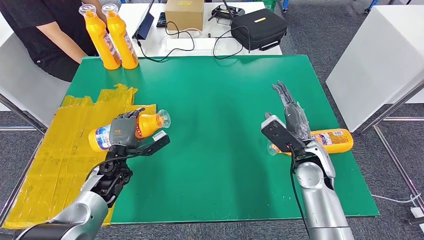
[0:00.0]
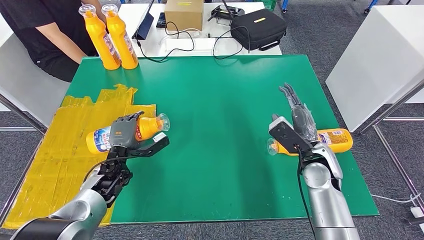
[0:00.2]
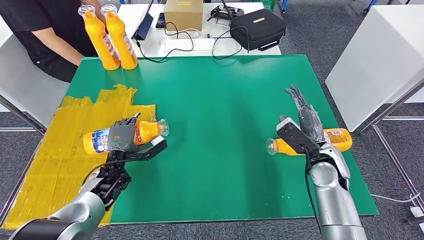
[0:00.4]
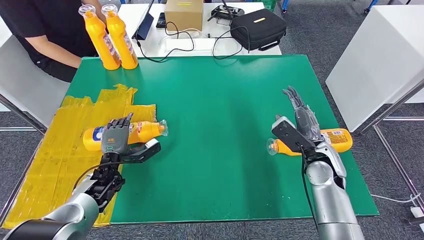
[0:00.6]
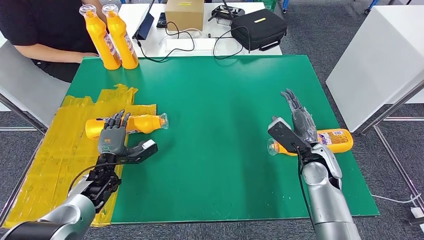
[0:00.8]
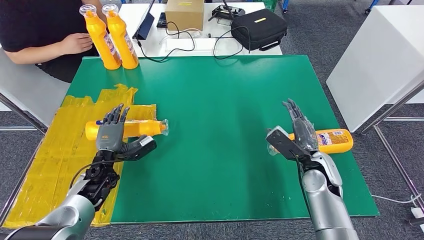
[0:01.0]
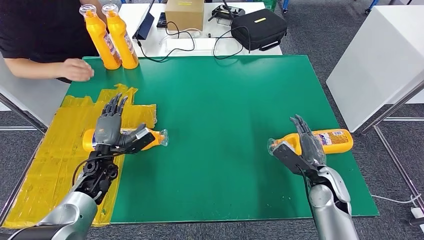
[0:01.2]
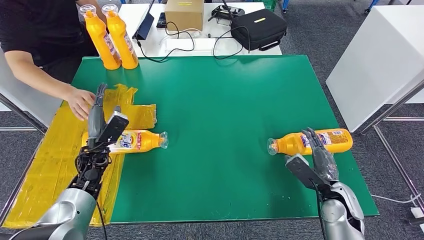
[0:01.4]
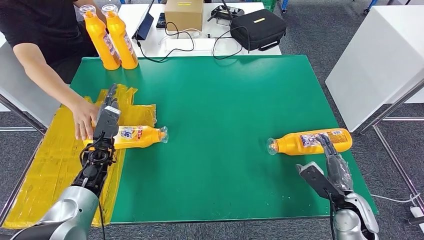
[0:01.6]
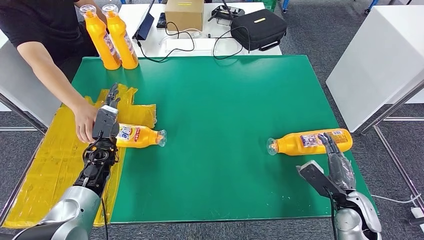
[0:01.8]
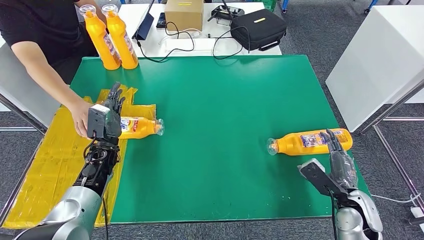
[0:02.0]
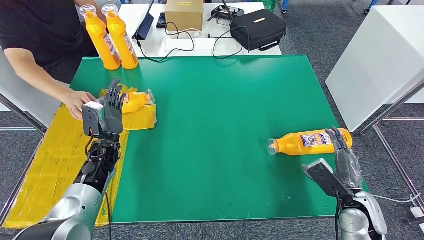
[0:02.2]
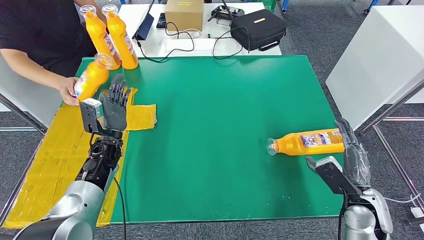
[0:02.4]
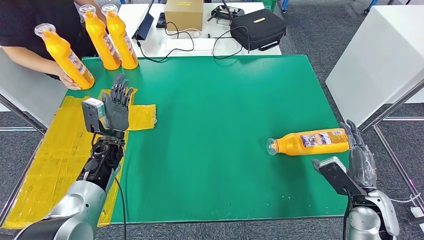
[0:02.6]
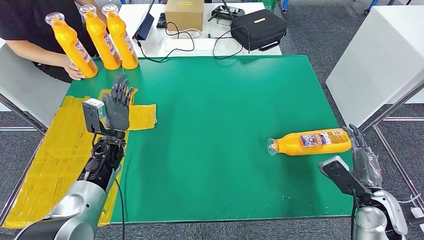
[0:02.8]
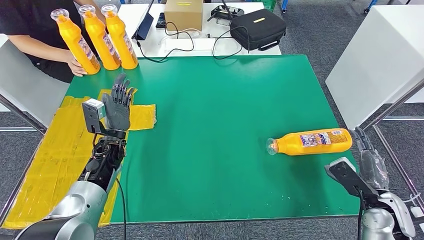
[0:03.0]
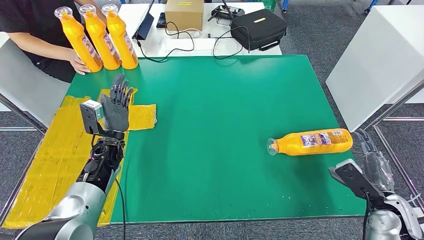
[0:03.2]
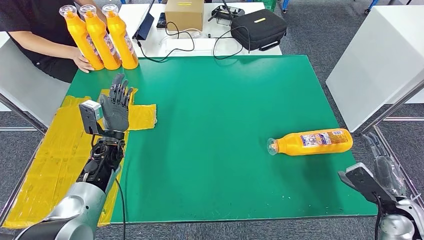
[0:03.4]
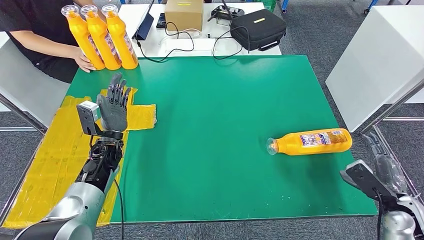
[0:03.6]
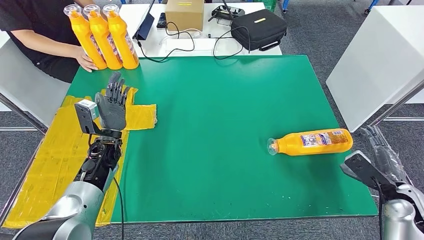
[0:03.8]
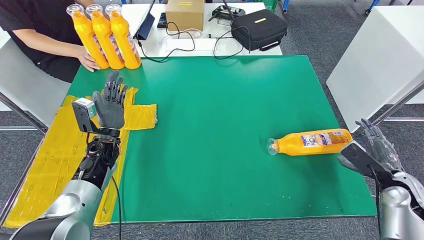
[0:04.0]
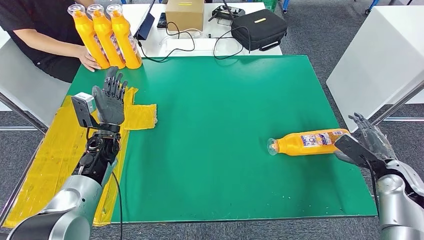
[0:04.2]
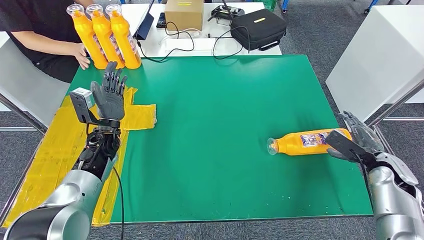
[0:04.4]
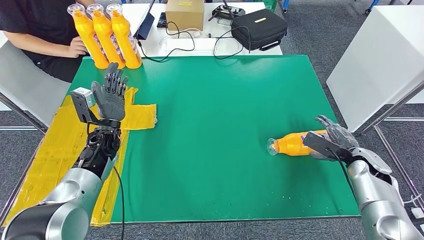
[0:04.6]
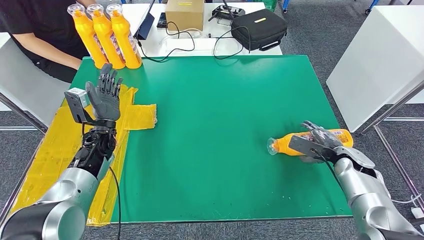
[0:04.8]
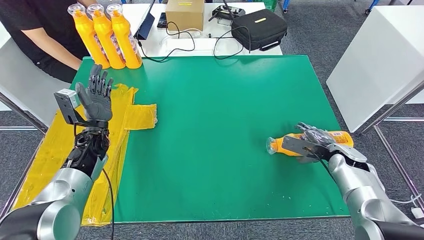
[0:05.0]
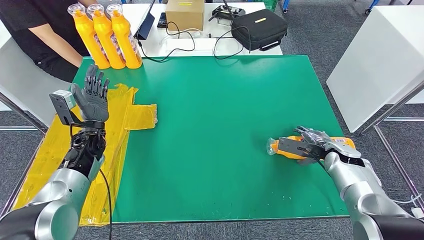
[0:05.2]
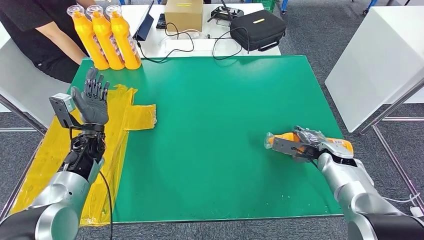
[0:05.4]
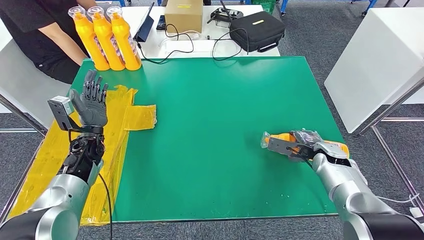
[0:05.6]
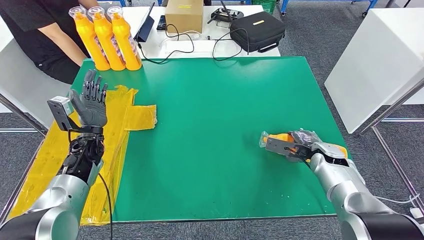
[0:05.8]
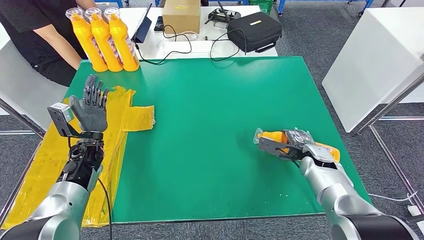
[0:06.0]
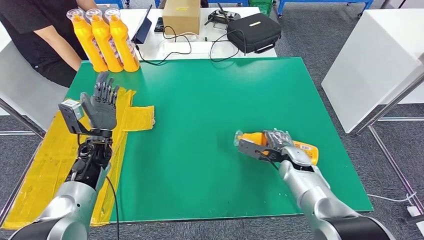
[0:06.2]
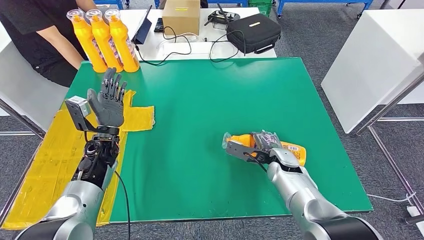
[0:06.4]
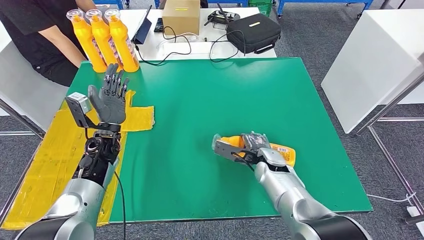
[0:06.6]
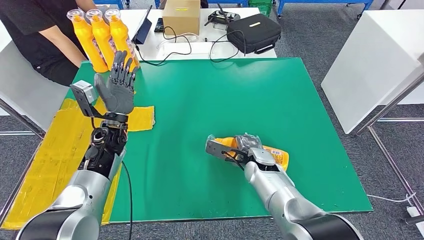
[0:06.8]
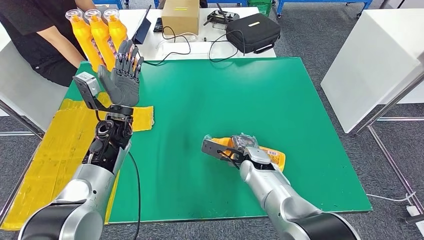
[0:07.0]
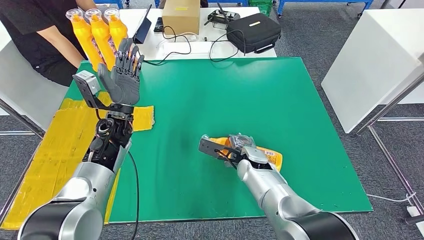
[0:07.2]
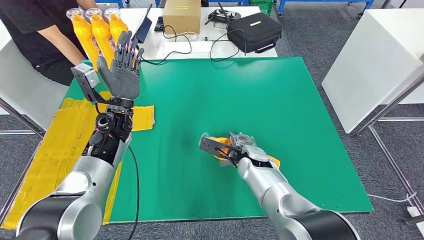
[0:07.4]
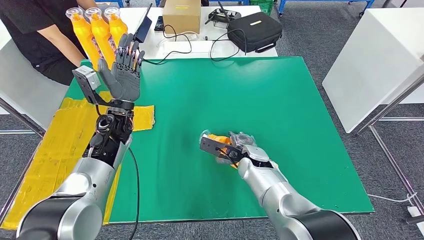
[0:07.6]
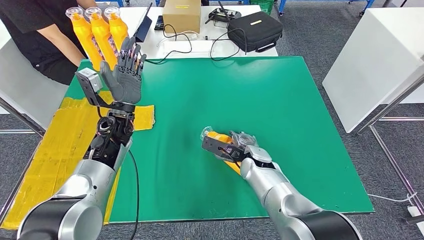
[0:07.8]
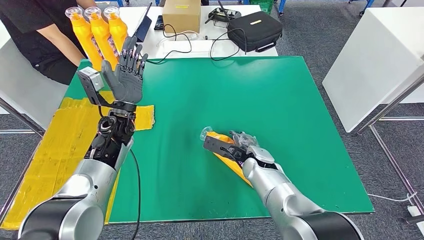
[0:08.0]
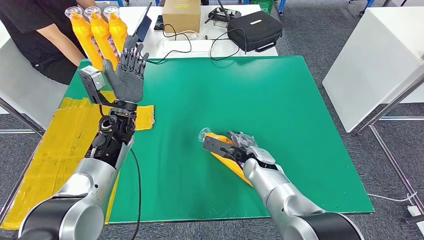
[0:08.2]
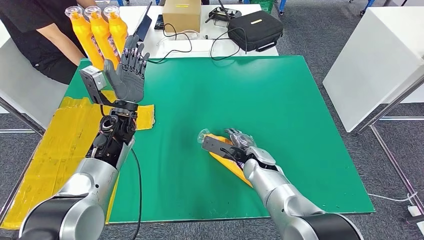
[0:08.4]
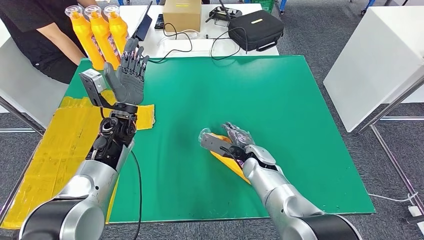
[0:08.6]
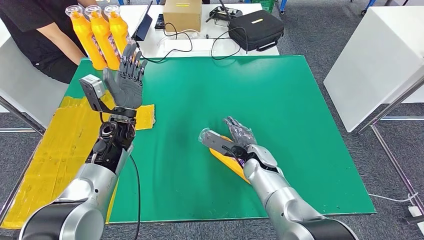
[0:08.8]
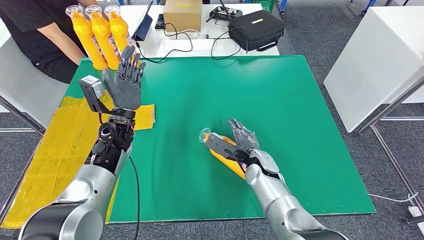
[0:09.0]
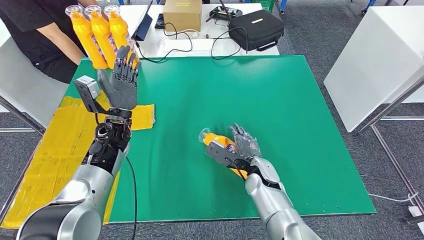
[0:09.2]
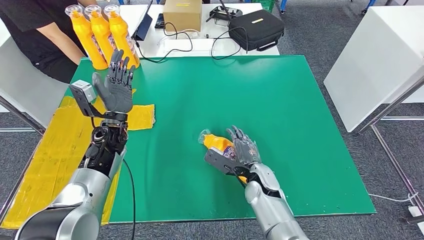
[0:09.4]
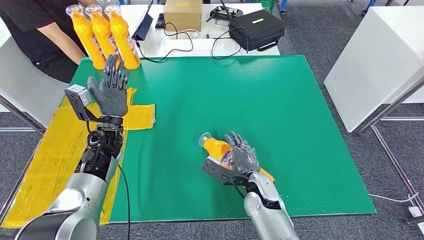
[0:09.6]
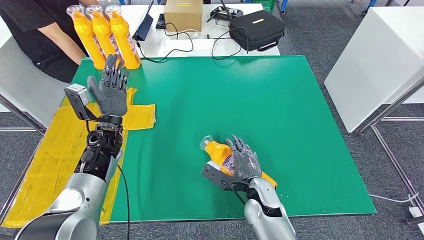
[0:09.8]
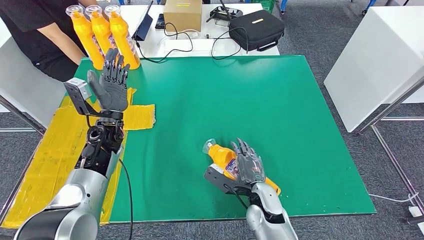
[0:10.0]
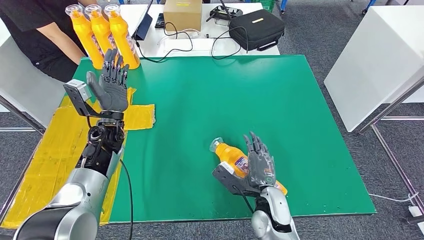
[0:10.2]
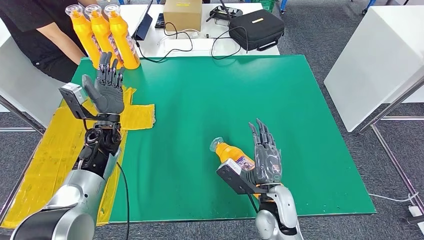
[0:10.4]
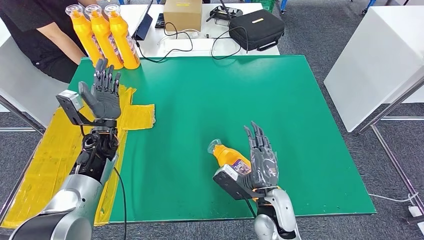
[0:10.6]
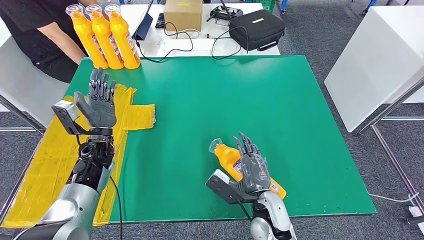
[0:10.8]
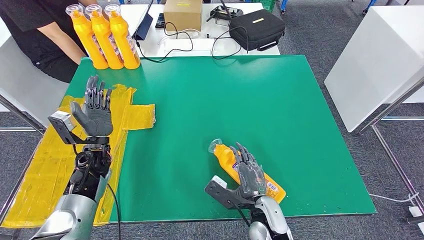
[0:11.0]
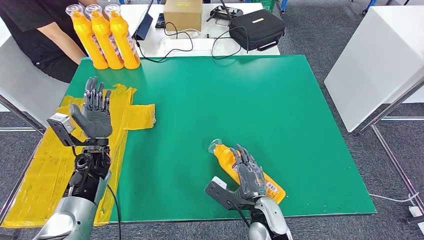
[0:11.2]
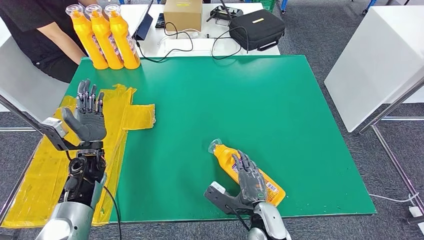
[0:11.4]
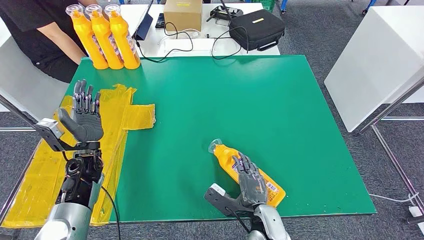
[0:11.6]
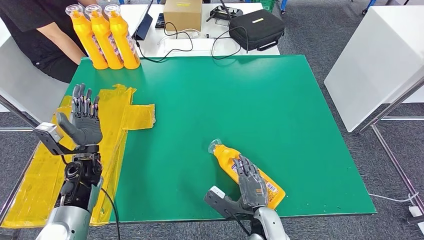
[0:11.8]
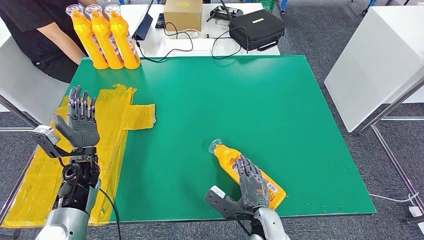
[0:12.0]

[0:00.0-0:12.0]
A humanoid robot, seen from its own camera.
0:03.0 to 0:04.4: The right hand shifts about 10 cm forward.
0:09.0 to 0:10.4: The right hand goes some 10 cm backward.
0:10.4 to 0:12.0: The left hand is displaced backward, to the left and downward by roughly 10 cm. The right hand heads downward, covering approximately 5 cm.

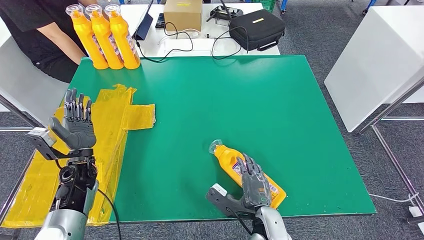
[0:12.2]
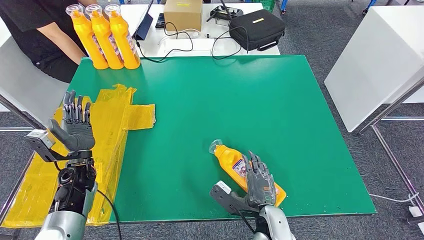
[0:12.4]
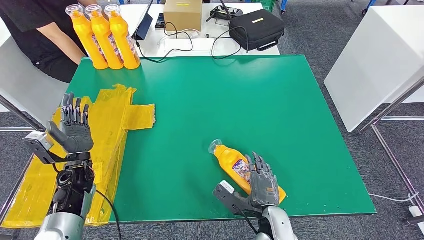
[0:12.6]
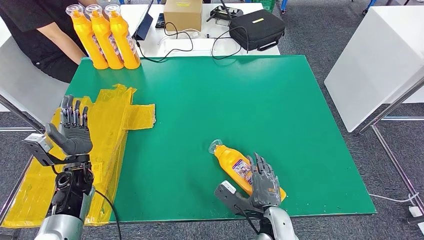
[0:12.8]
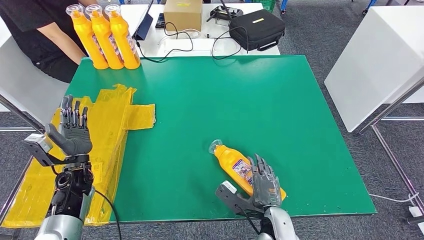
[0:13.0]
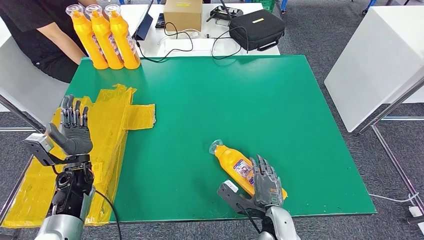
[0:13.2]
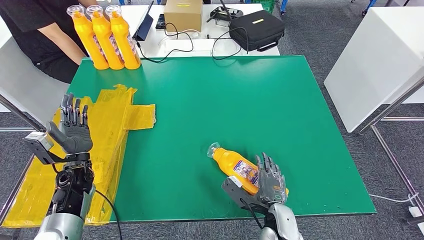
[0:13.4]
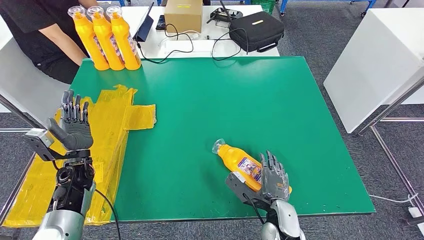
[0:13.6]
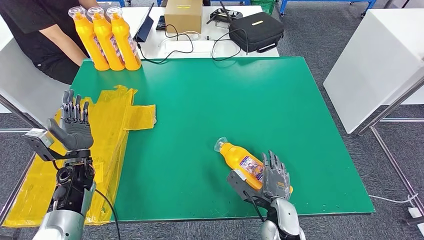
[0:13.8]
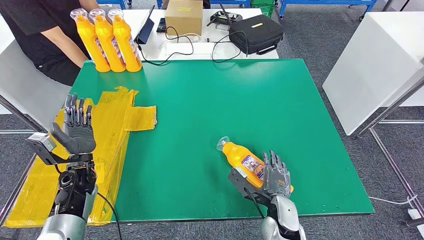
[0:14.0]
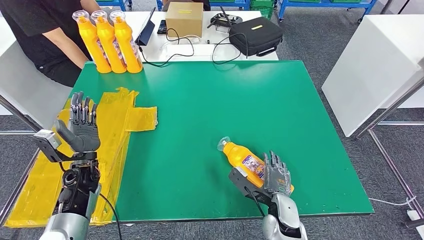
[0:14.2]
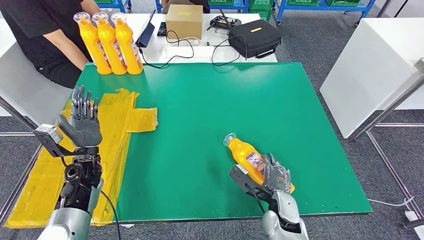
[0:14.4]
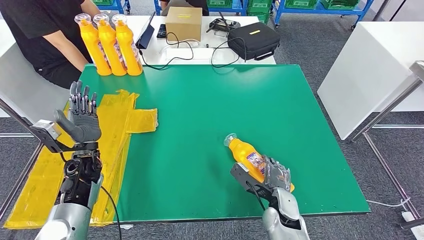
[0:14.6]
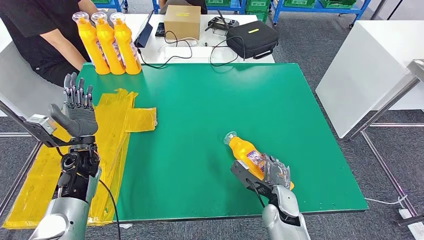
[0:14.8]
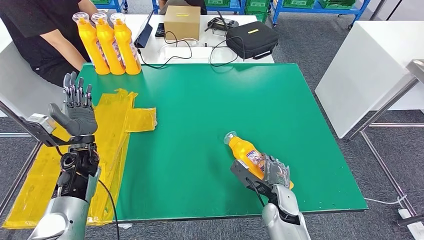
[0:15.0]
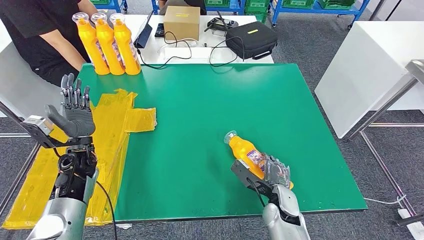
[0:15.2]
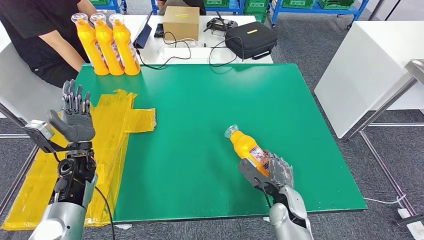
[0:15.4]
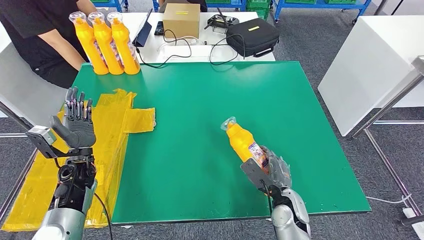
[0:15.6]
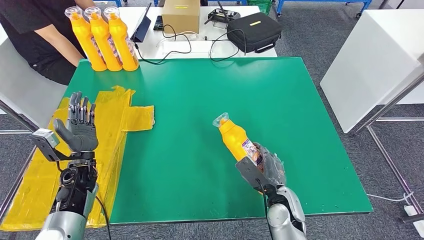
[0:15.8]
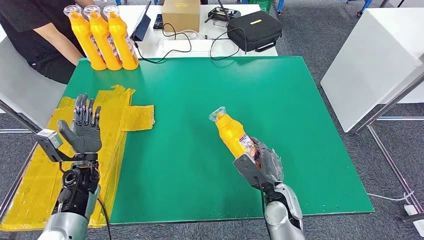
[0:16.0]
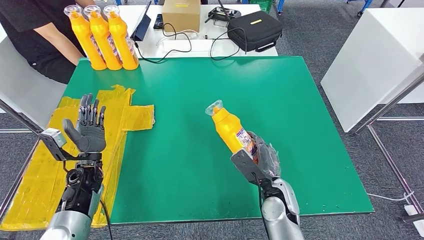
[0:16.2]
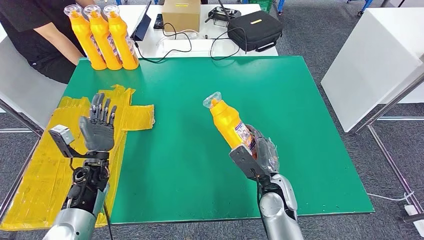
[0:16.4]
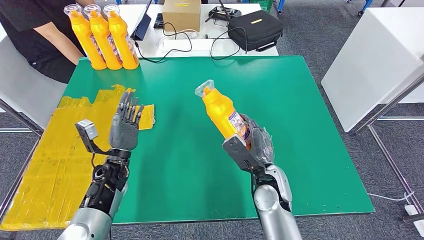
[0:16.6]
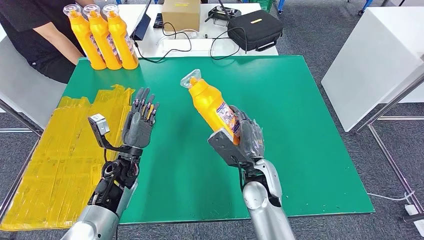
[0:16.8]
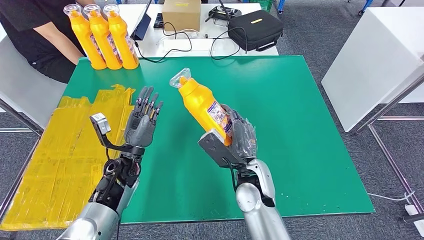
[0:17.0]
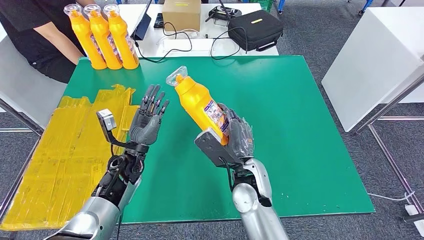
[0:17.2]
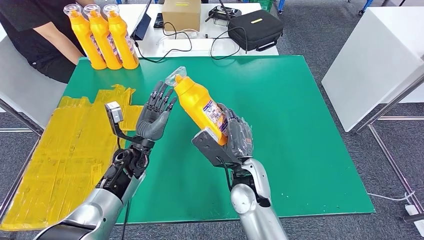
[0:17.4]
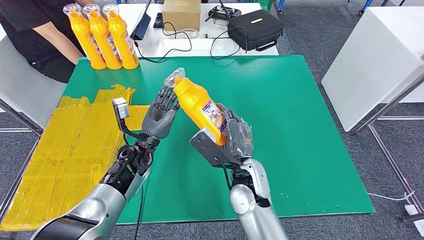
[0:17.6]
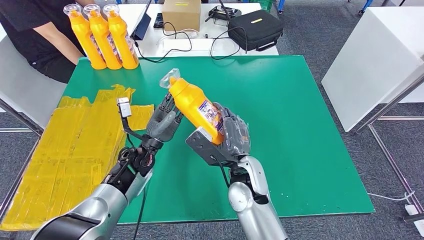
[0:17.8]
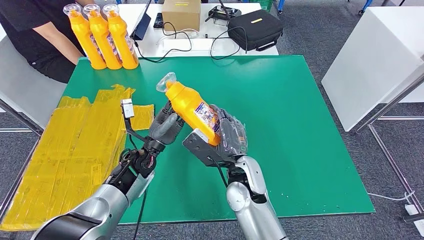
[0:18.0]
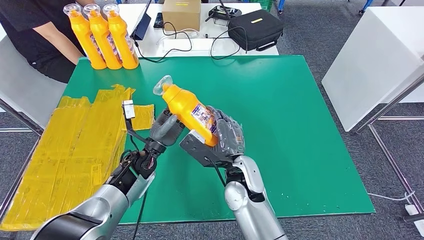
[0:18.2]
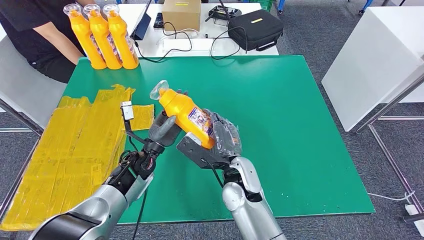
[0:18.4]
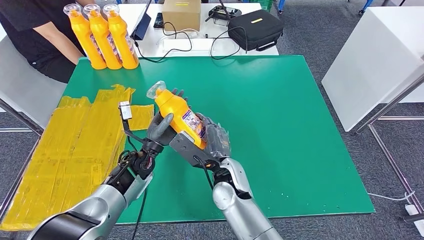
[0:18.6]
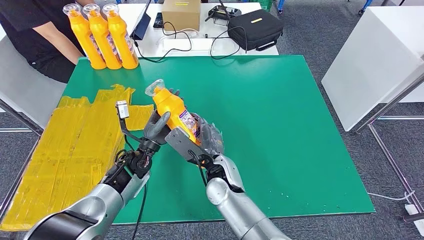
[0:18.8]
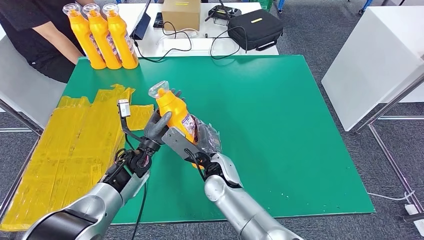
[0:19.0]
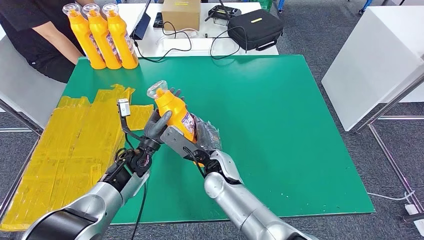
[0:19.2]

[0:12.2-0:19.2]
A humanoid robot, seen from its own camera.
Step, 0:12.2 to 0:18.0: Pick up the fast-moving consumer goods bottle from the table.
0:12.2 to 0:13.6: The hands stay close to where they were, moving slightly.
0:17.8 to 0:19.2: The right hand moves to the left, about 5 cm.
